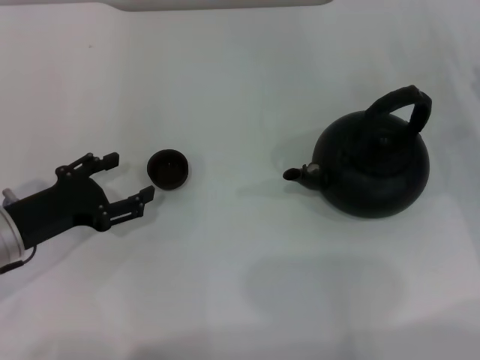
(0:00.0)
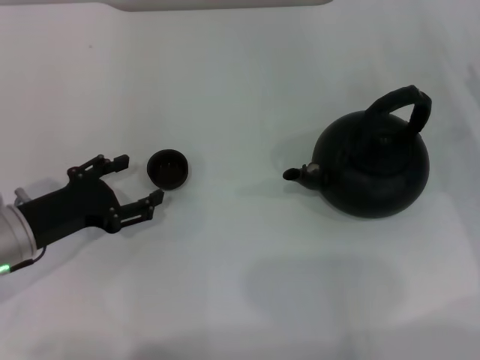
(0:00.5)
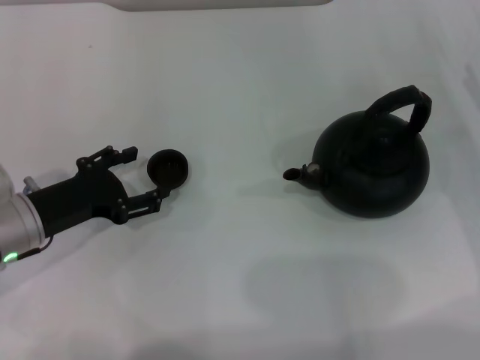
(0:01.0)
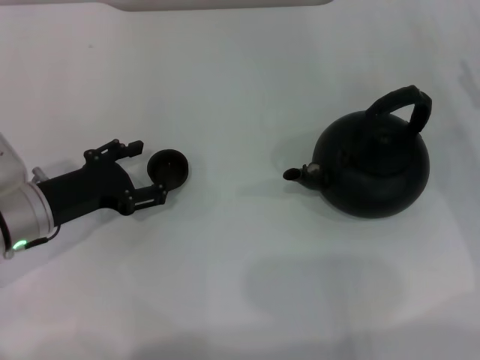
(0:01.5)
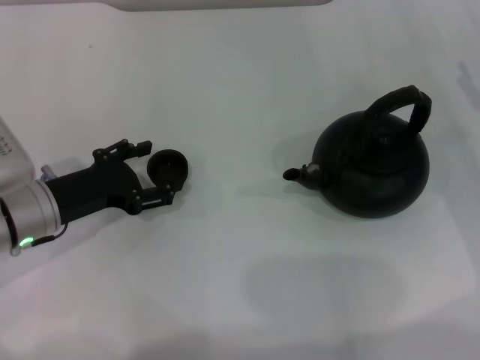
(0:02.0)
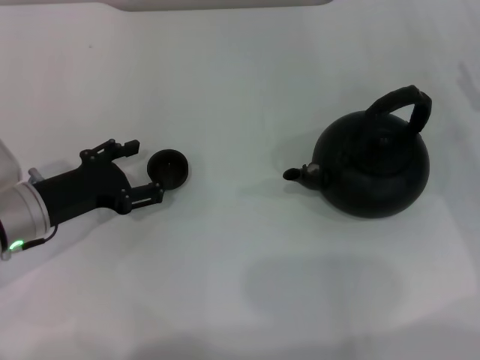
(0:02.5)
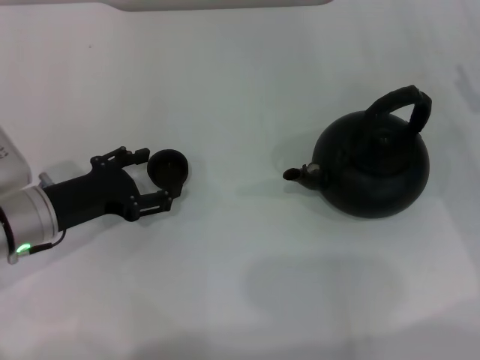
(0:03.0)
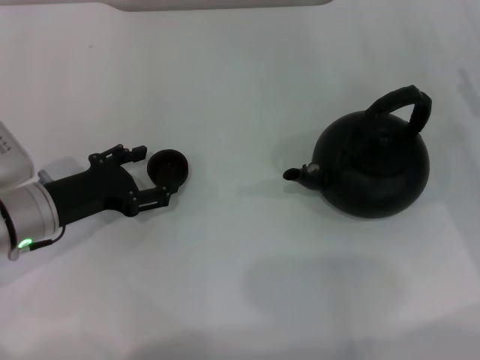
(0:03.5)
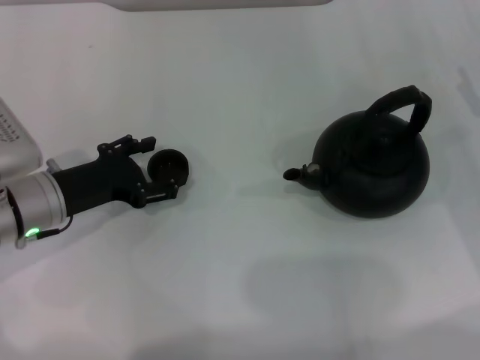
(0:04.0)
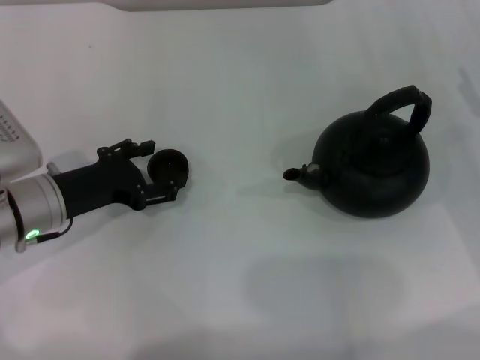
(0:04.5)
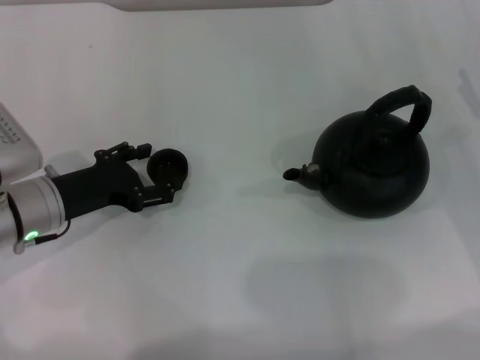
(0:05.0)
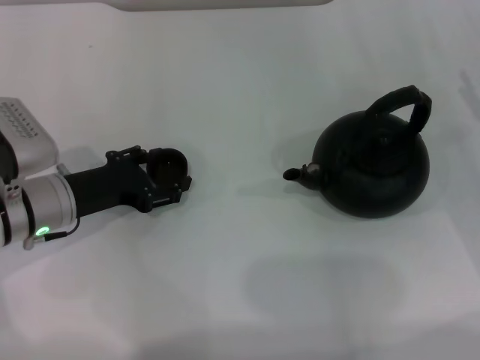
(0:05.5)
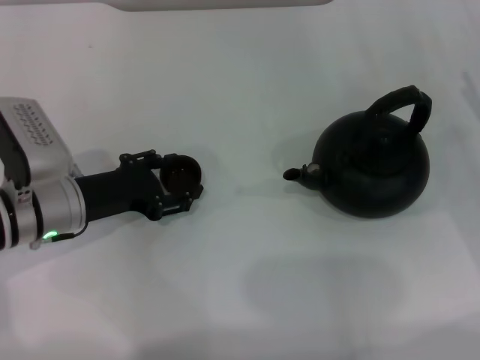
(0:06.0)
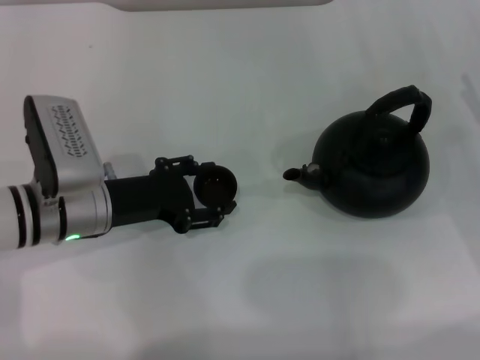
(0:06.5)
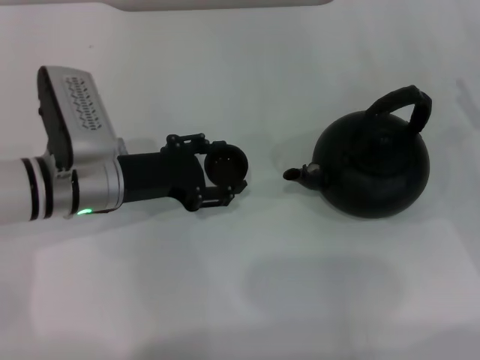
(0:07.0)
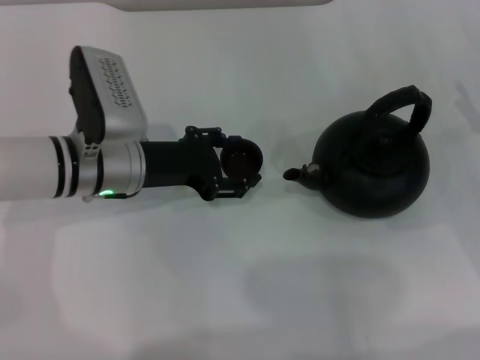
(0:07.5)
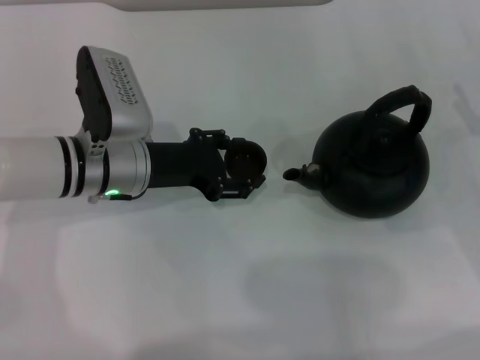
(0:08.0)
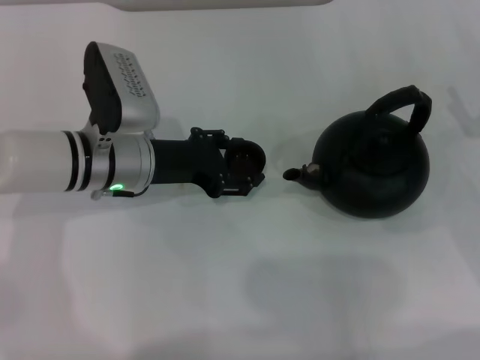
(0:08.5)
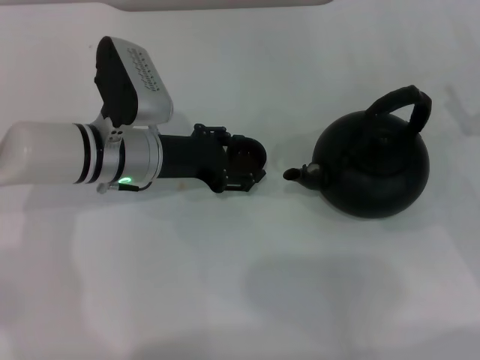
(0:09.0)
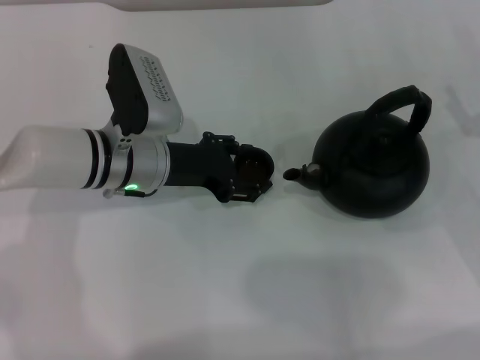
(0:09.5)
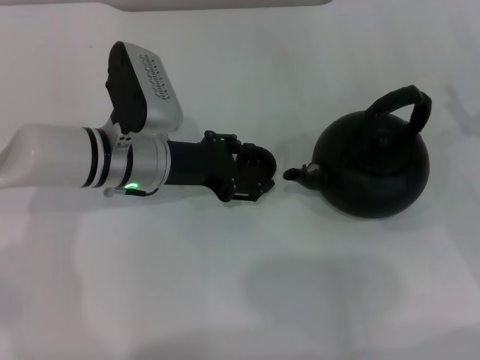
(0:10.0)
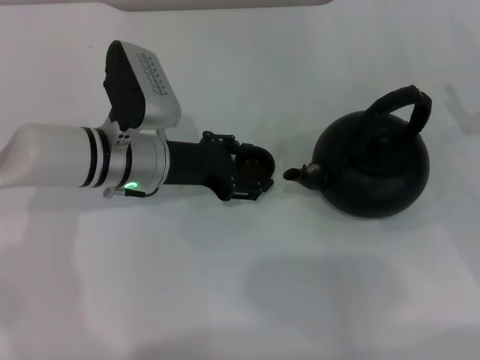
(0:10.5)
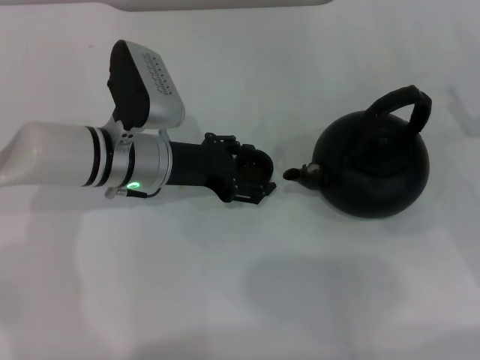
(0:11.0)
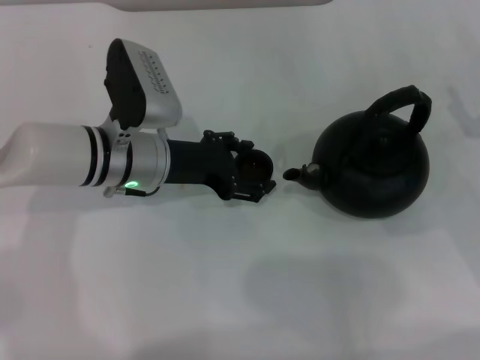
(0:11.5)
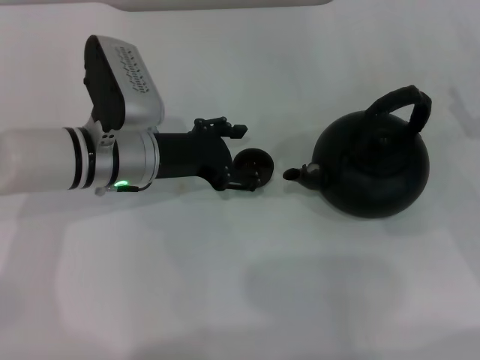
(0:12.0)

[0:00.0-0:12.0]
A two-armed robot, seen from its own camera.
Task of the whole recording: Grasp the handle of the teapot with one hand and pour tea into the teacup.
Step, 0:00.0 to 0:06.0: Pick up the teacup with the left gripper.
0:00.0 to 0:02.0: The grippers move only a little.
0:02.0 to 0:04.0: Neither gripper changes place.
0:04.0 to 0:06.0: The left gripper closes up.
0:06.0 to 0:08.0: The left gripper moves to the right, some 5 cm.
0:08.0 to 0:10.0: There are only small adjustments of the grippers.
0:10.0 to 0:12.0: The left gripper opens.

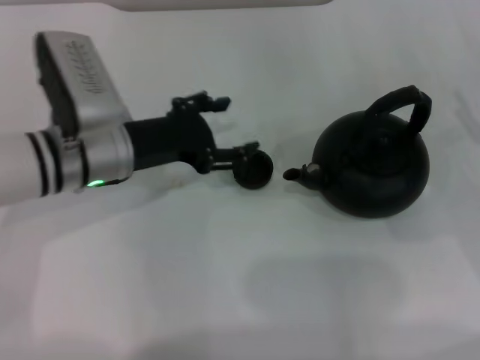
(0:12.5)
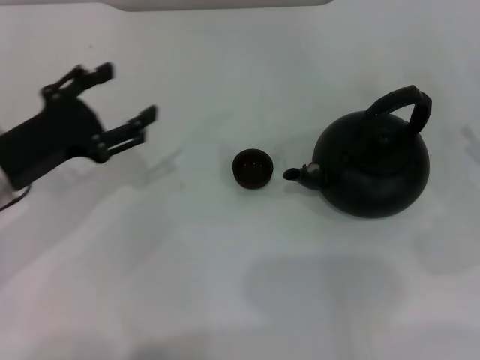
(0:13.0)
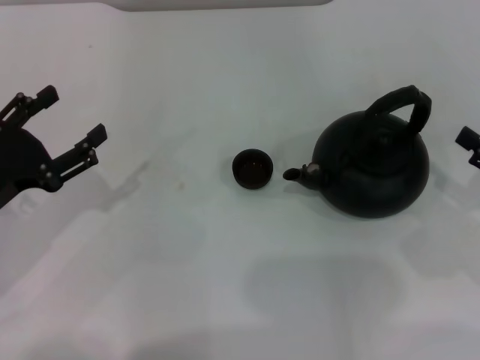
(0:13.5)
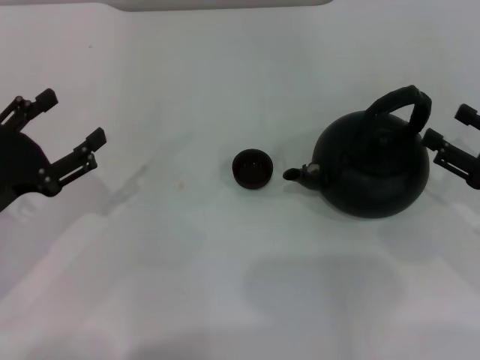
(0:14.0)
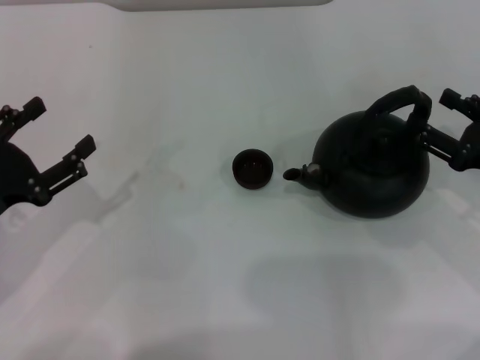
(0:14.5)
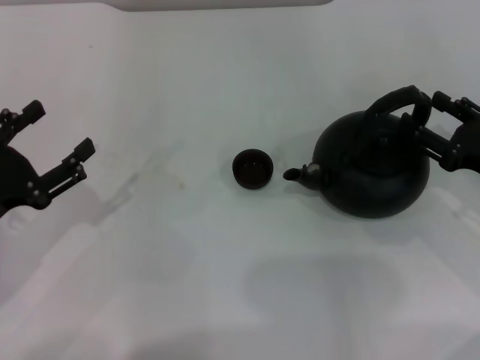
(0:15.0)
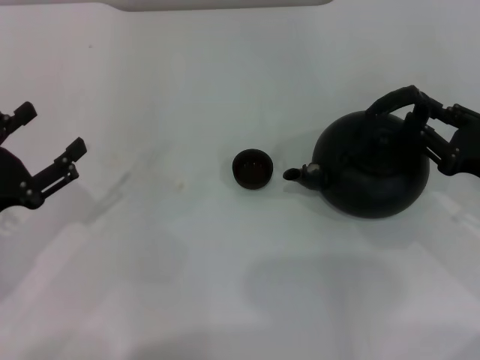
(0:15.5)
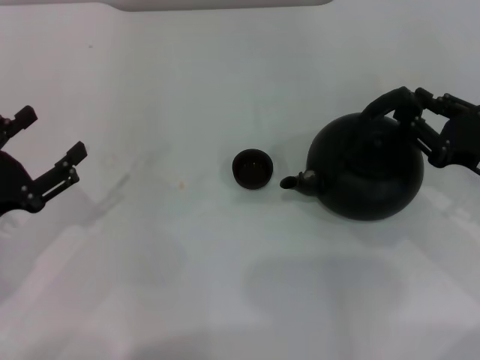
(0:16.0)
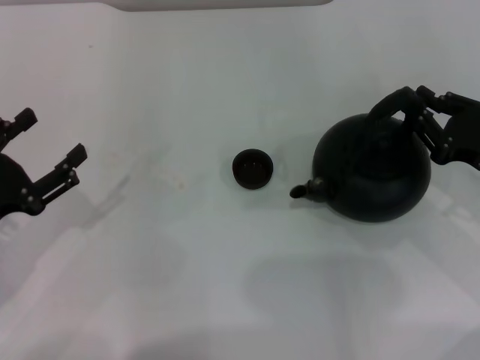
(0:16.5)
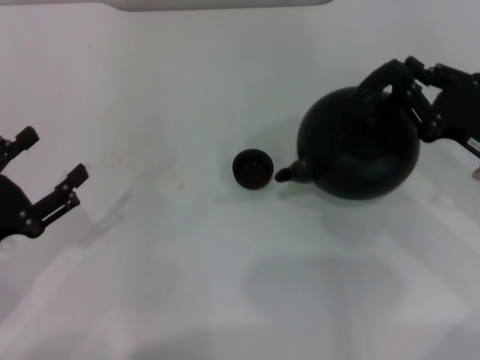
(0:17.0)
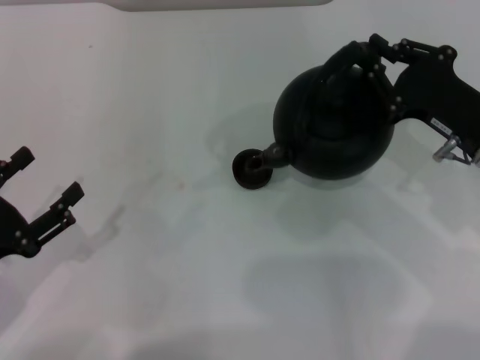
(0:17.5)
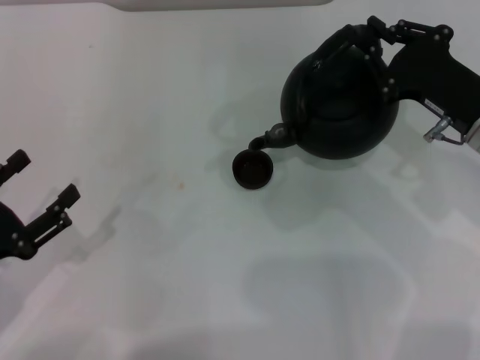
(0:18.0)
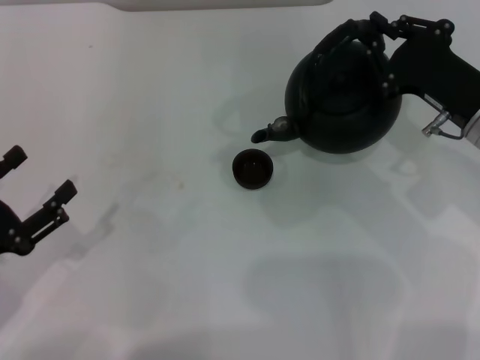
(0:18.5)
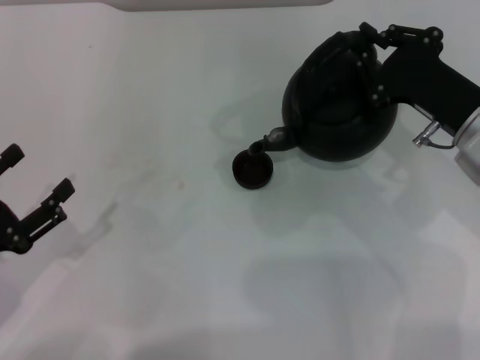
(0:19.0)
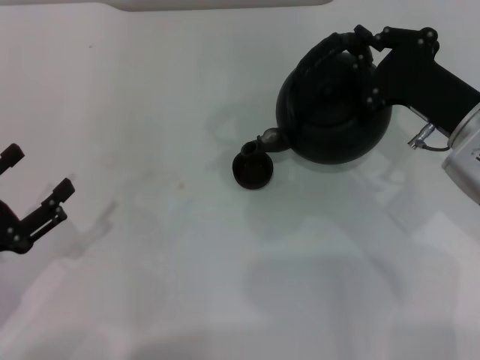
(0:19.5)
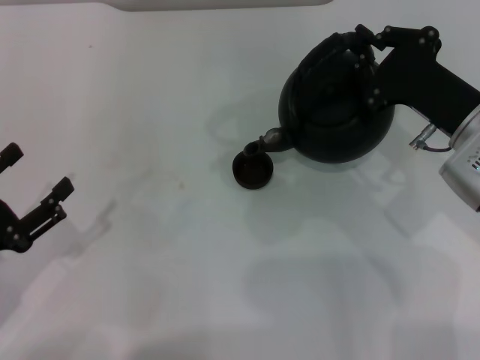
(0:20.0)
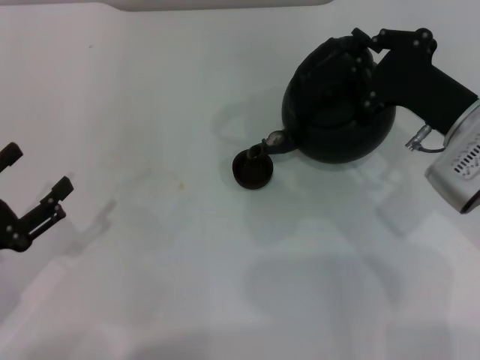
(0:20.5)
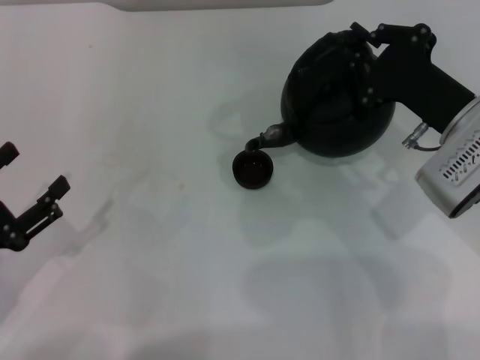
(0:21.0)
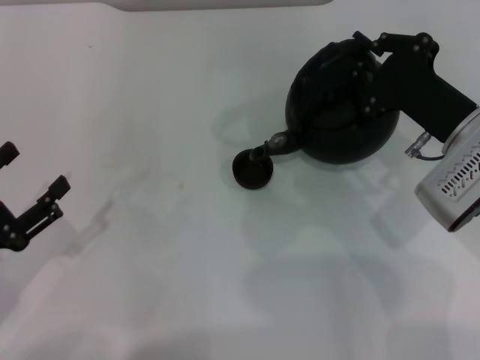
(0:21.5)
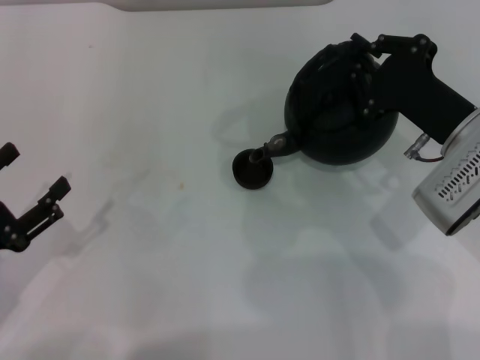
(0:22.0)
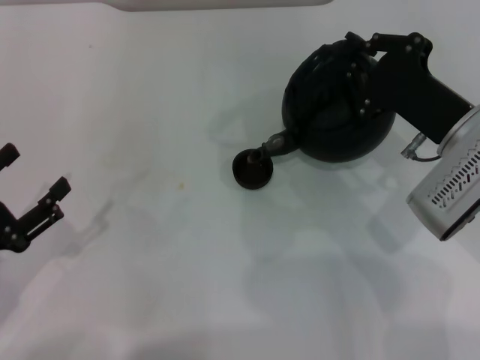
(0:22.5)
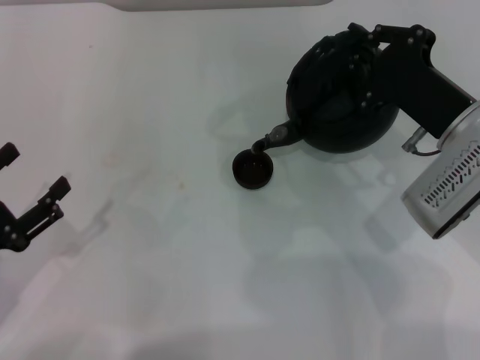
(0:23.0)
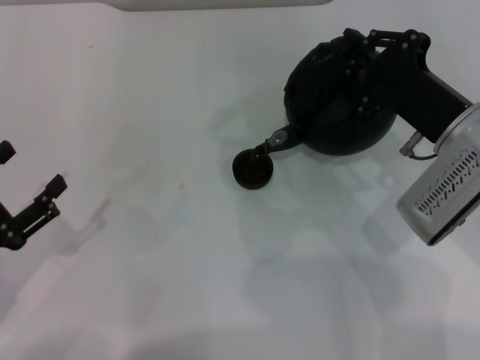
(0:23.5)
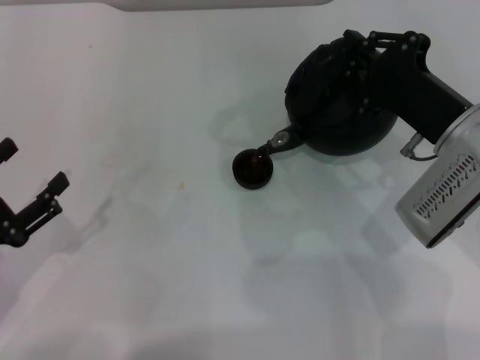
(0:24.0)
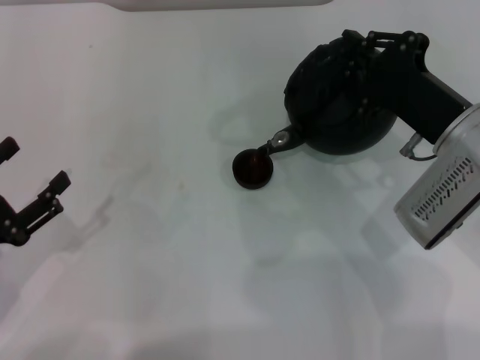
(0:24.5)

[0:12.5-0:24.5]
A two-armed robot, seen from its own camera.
Task of the whole recording: Grasp the handle of the teapot with one hand and pour tea into the teacup.
Step, 0:13.0 to 0:17.0: Pick up the teapot with the right gripper.
0:12.5 to 0:14.5: The left gripper moves to the left and backward, some 20 cm.
0:14.5 to 0:16.5: The right gripper closes its fingers.
0:16.5 to 0:18.5: The right gripper is displaced to the left by roughly 5 cm.
0:18.5 to 0:20.5: The grippers move only a little.
0:20.5 to 0:24.5: The grippers stay close to where they were, moving slightly.

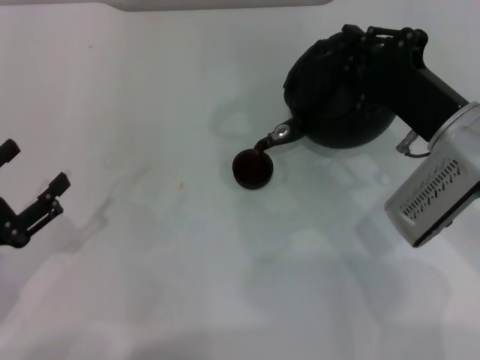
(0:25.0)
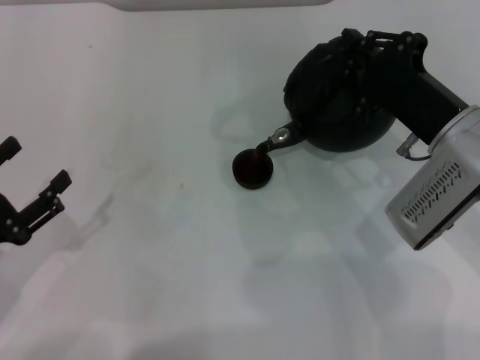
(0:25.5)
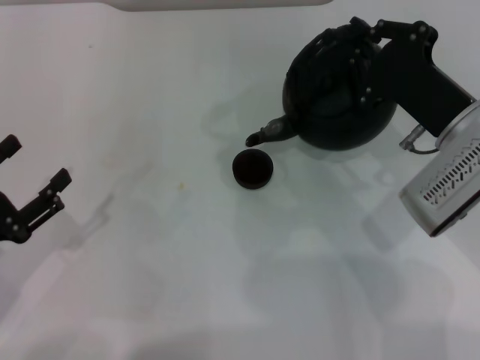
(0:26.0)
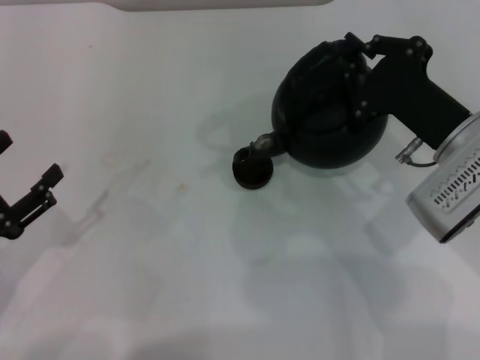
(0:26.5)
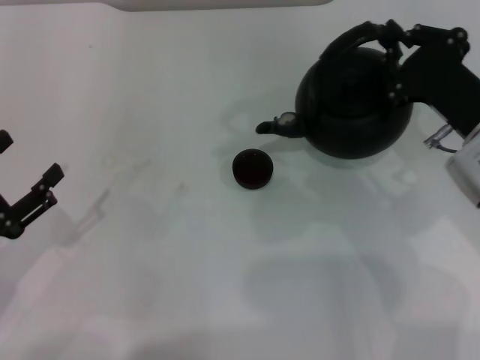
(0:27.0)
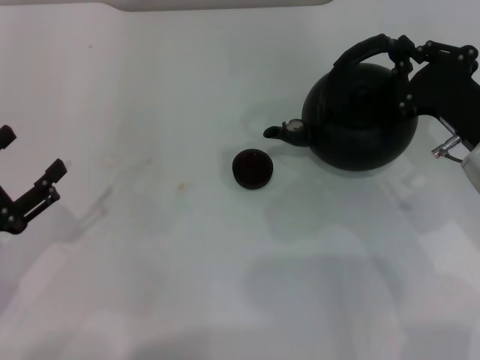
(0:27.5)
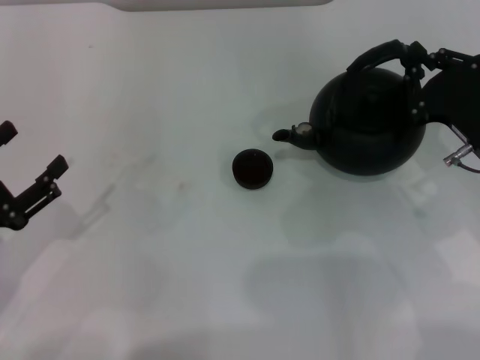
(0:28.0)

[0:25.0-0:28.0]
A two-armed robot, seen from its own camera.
Task of the whole recording: Grasp the handle of the teapot with one hand and pour tea into the teacup.
Step, 0:25.0 to 0:27.0: Pour tea into the teacup with the right gripper.
0:25.0 to 0:26.5: The grippers move only a little.
0:26.5 to 0:28.0: The right gripper changes place by approximately 5 cm.
